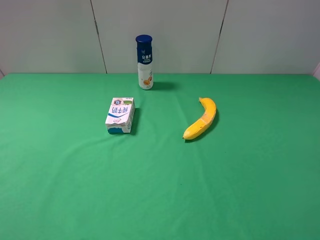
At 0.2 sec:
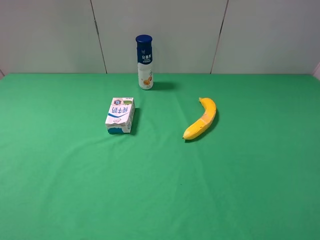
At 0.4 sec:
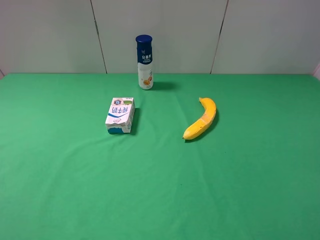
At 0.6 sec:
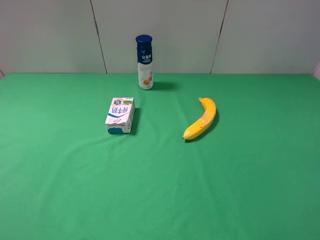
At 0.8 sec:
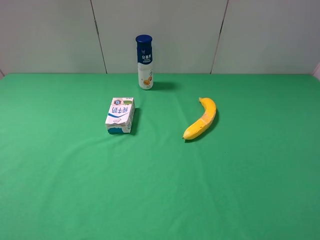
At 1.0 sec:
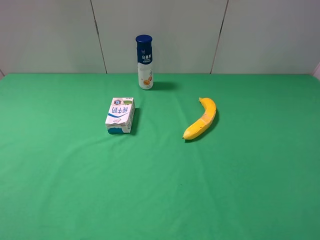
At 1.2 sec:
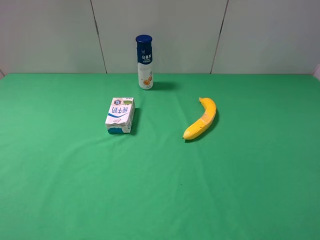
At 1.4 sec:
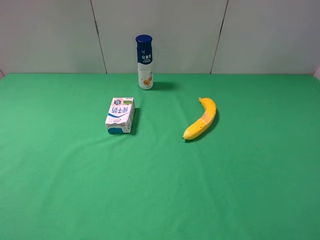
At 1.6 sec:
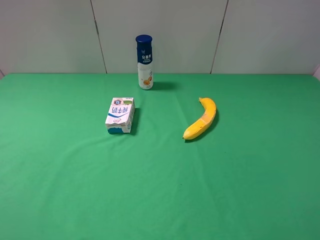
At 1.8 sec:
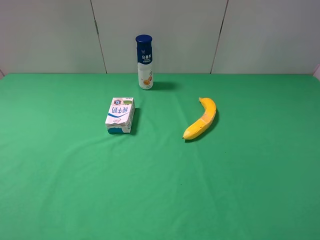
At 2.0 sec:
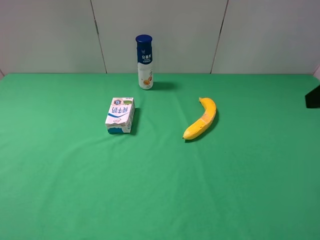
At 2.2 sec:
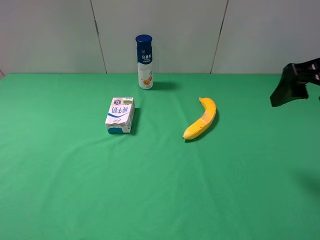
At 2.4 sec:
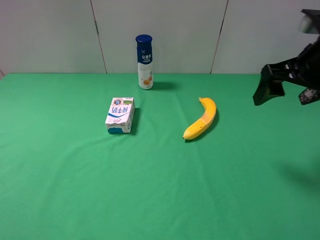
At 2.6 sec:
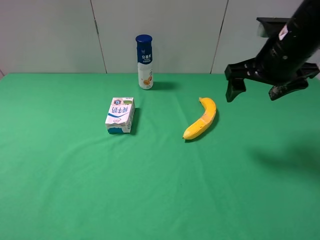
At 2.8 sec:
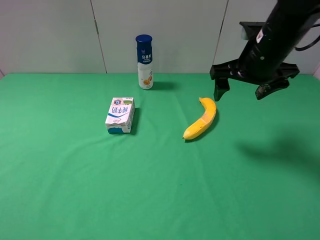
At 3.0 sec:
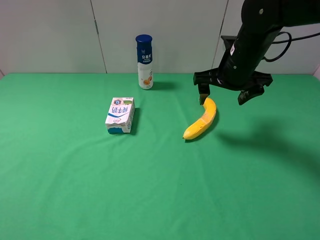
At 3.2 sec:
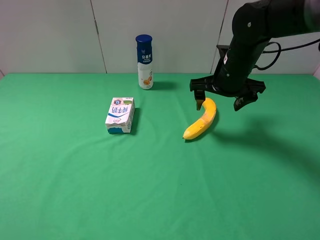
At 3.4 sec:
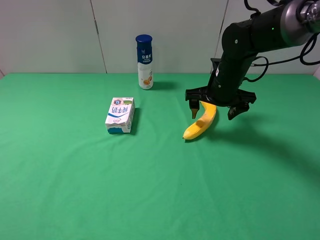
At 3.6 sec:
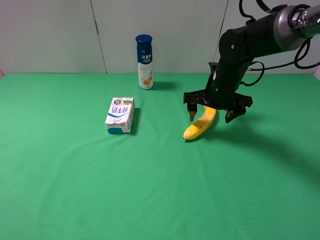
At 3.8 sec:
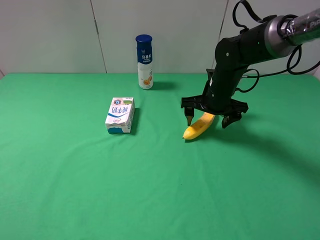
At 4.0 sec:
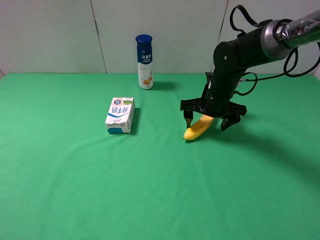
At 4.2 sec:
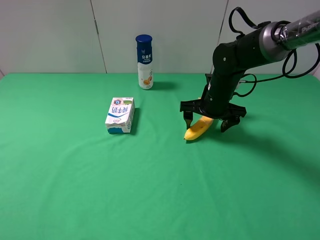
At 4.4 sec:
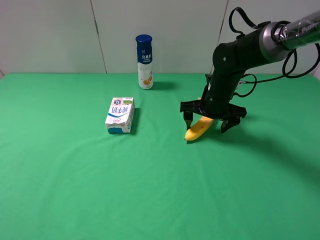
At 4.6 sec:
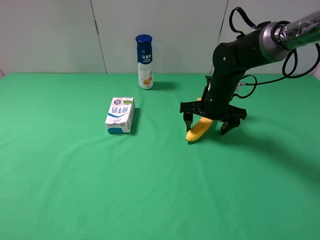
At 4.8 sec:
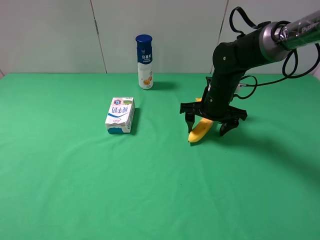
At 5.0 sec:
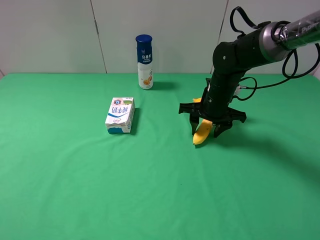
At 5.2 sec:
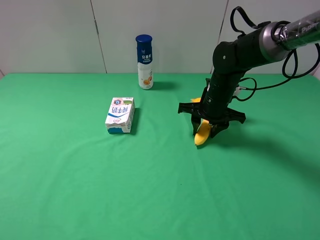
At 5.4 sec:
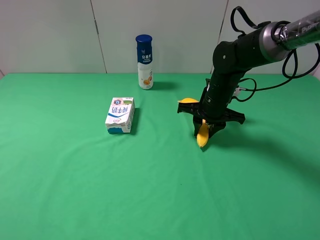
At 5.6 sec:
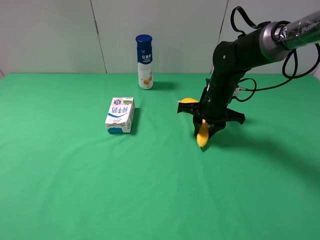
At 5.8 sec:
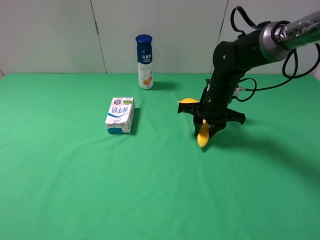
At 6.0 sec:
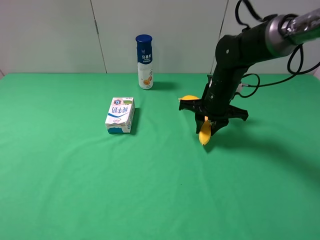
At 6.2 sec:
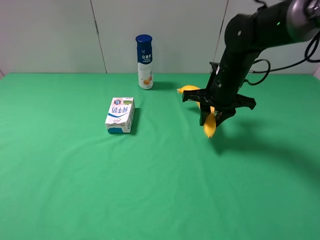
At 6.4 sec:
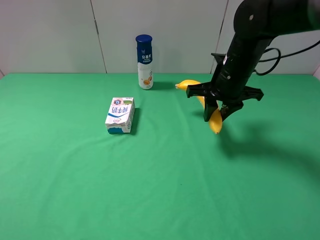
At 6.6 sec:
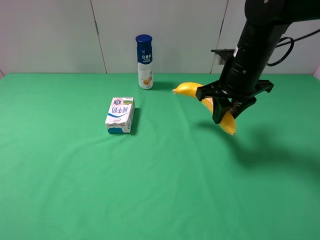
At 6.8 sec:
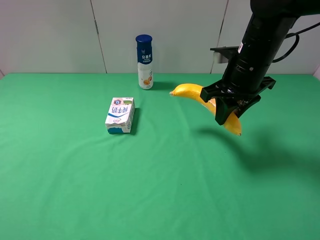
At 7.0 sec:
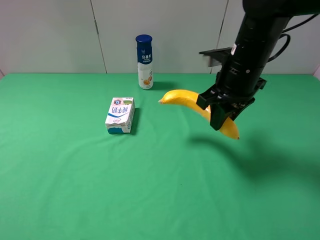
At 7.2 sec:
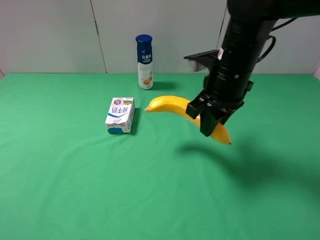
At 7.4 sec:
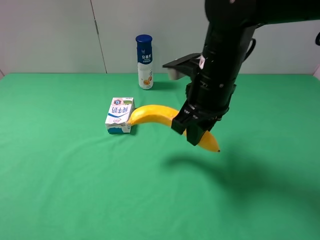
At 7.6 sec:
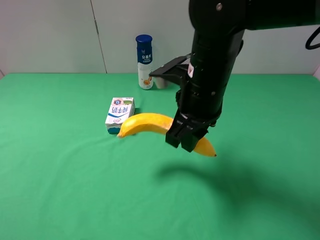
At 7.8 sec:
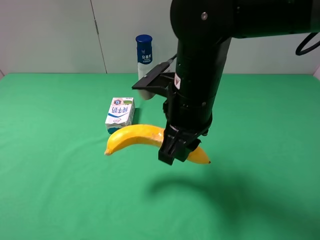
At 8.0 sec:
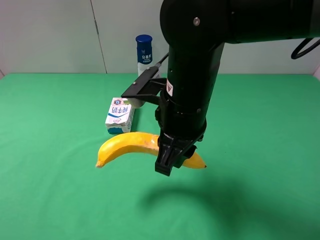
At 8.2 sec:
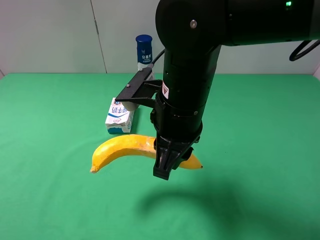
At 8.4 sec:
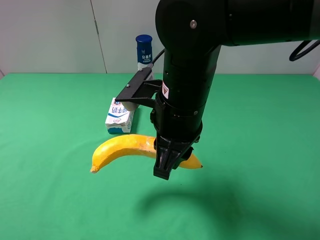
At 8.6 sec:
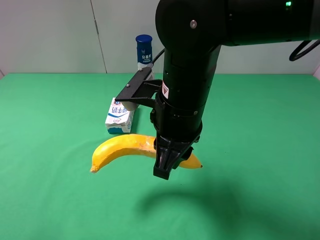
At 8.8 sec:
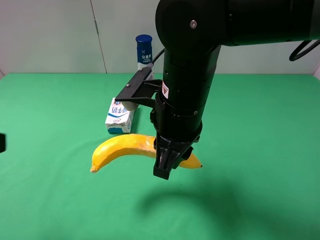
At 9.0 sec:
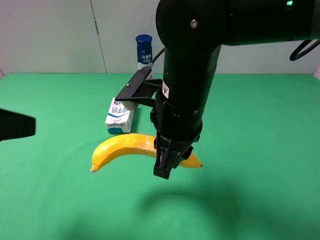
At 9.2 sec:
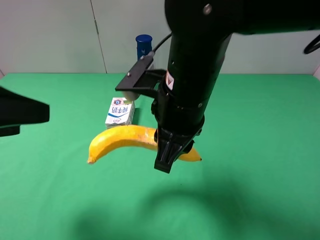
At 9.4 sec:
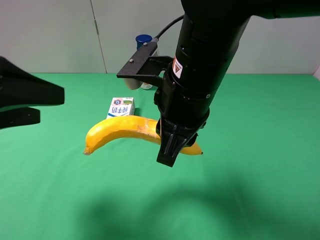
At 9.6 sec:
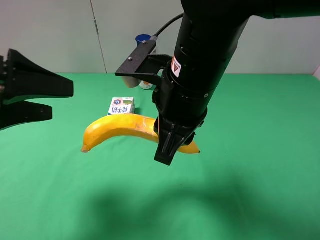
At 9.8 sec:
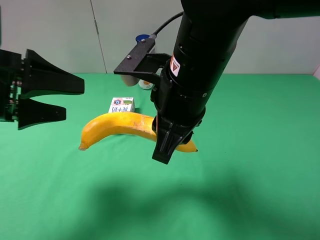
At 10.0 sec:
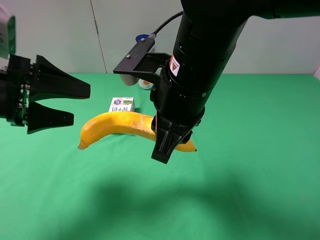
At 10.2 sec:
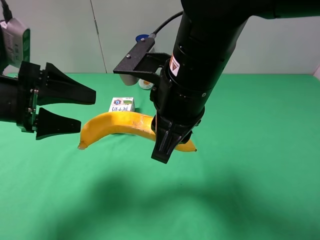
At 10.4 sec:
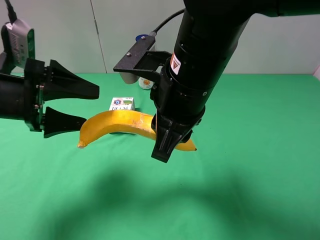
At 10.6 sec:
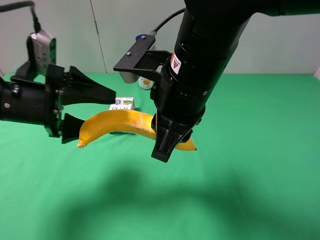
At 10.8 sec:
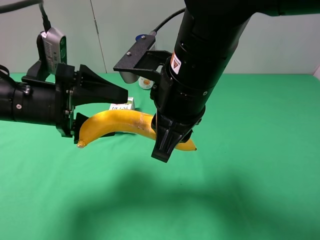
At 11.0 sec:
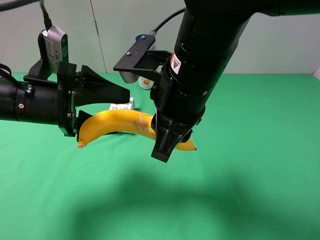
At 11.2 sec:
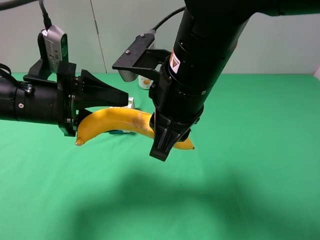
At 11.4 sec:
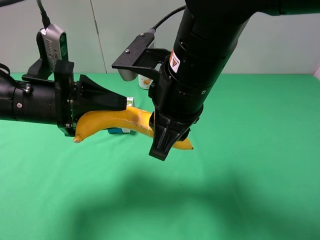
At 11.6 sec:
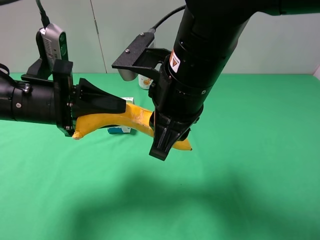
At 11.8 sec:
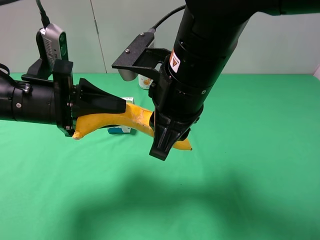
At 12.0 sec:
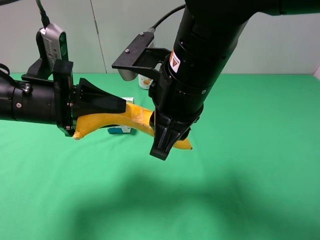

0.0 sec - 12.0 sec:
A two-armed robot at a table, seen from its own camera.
Task of the whole recording: use the right gripper to pick up the item and transfer it from the right gripper to the left gripper.
1.6 sec - 3.0 sec: The right gripper shifts some 35 cm forward and to the left.
3.0 sec - 4.4 sec: The right gripper heads downward, covering about 10 cm.
4.4 sec - 6.0 sec: The right gripper closes its fingers.
6.0 sec - 7.6 sec: The right gripper travels backward, upward and to the left by roughly 15 cm.
7.6 sec - 9.0 sec: The left gripper goes some 10 cm forward.
9.0 sec - 10.4 sec: The left gripper goes about 15 cm forward and downward.
10.4 sec - 12.0 sec: The left gripper closes.

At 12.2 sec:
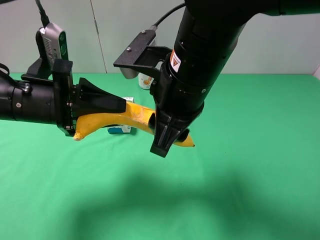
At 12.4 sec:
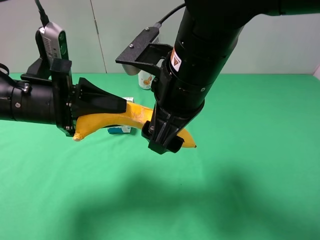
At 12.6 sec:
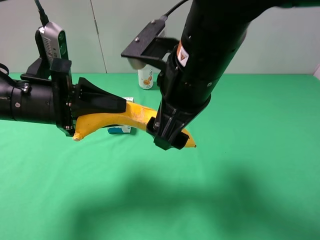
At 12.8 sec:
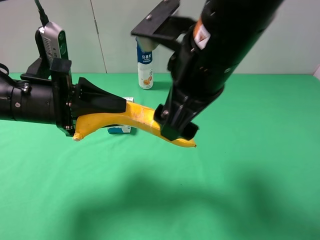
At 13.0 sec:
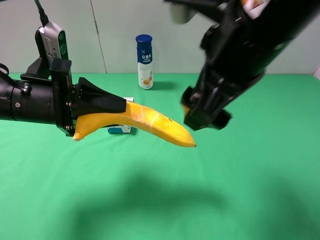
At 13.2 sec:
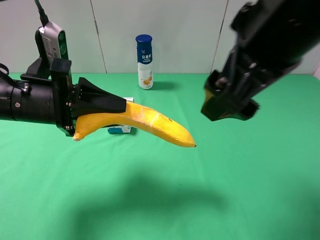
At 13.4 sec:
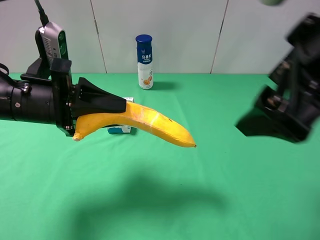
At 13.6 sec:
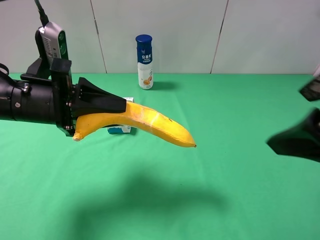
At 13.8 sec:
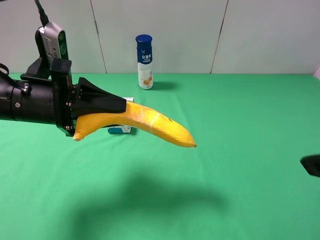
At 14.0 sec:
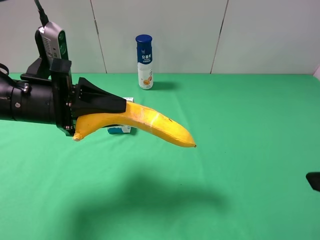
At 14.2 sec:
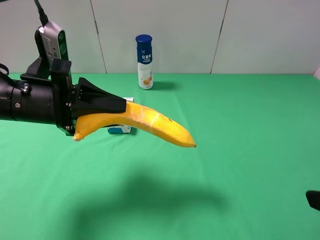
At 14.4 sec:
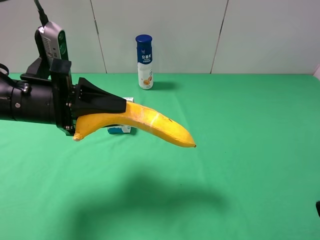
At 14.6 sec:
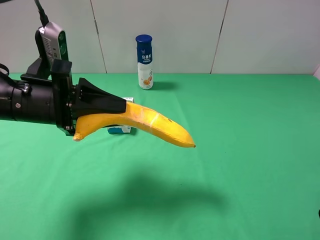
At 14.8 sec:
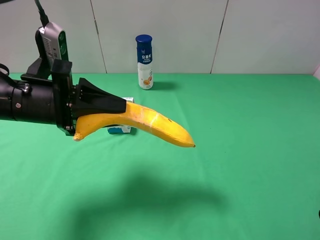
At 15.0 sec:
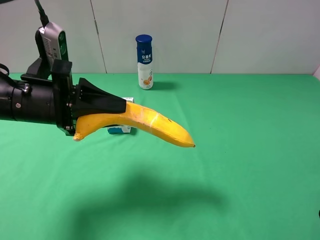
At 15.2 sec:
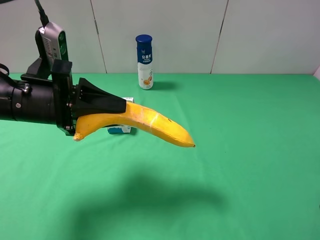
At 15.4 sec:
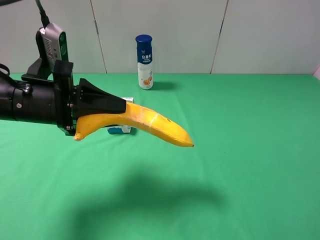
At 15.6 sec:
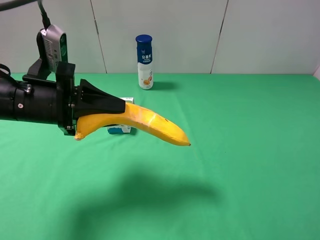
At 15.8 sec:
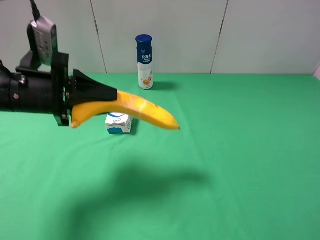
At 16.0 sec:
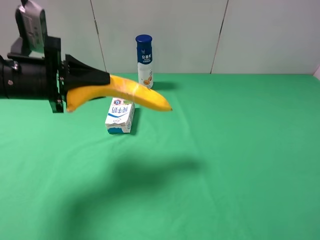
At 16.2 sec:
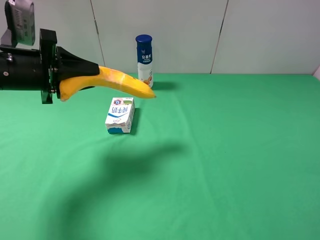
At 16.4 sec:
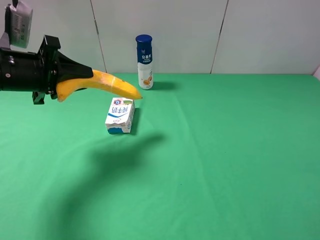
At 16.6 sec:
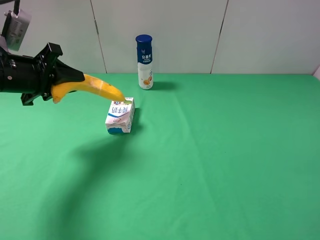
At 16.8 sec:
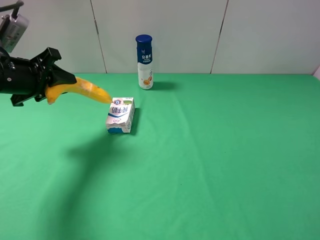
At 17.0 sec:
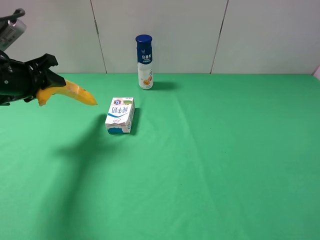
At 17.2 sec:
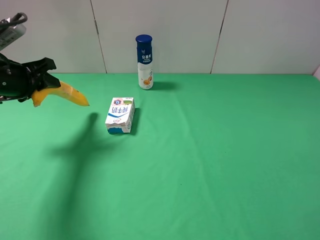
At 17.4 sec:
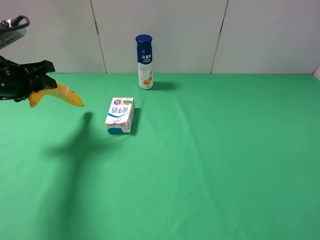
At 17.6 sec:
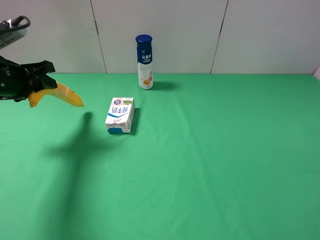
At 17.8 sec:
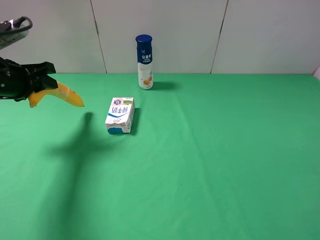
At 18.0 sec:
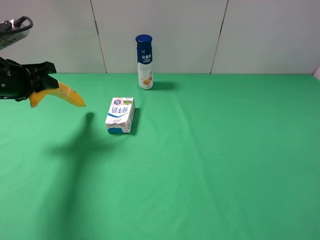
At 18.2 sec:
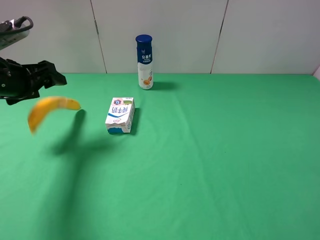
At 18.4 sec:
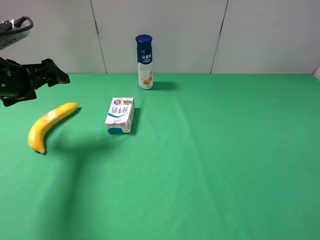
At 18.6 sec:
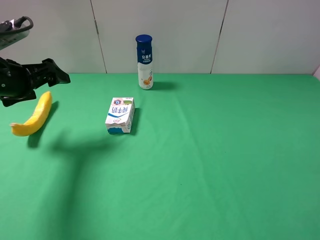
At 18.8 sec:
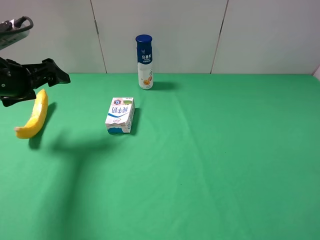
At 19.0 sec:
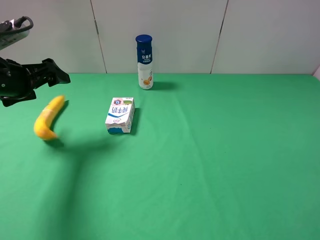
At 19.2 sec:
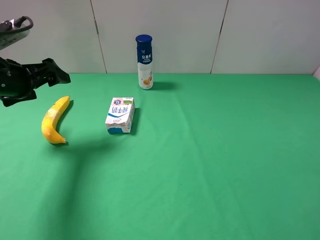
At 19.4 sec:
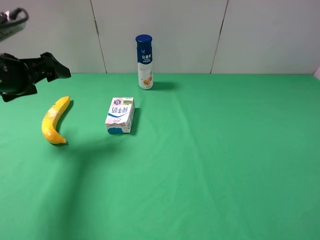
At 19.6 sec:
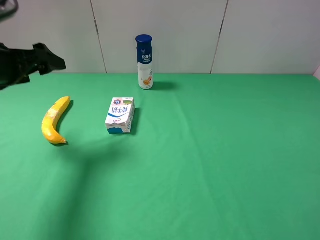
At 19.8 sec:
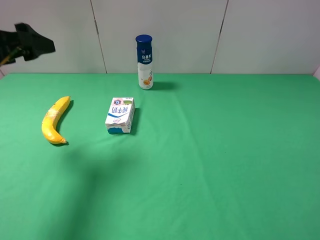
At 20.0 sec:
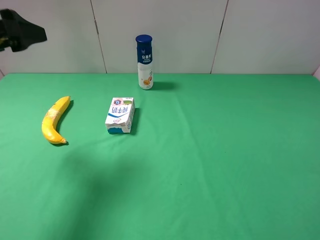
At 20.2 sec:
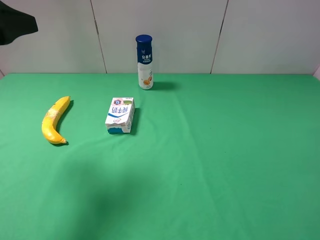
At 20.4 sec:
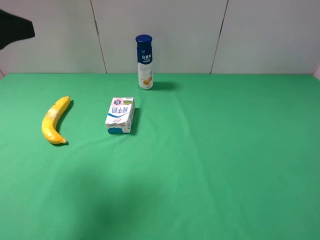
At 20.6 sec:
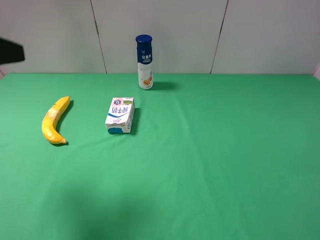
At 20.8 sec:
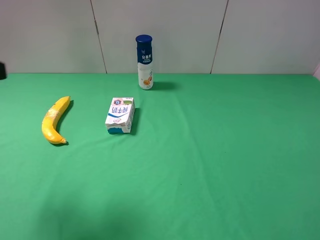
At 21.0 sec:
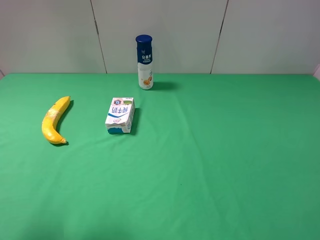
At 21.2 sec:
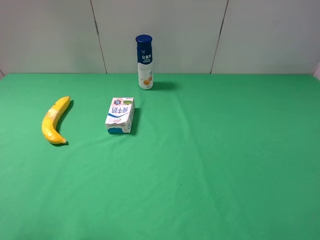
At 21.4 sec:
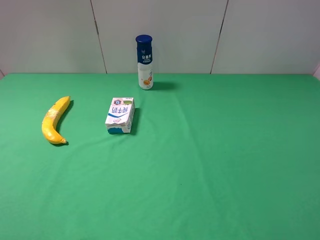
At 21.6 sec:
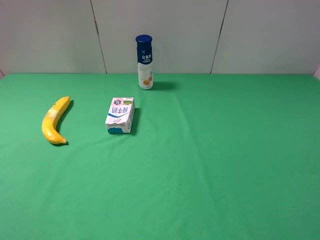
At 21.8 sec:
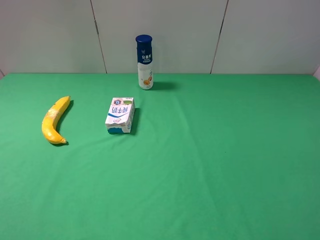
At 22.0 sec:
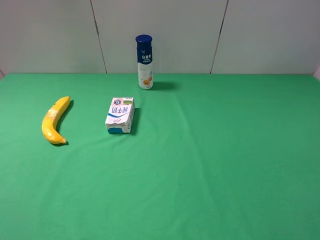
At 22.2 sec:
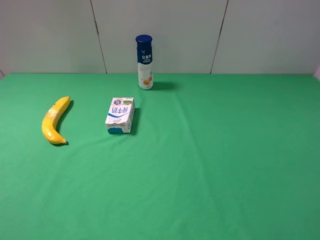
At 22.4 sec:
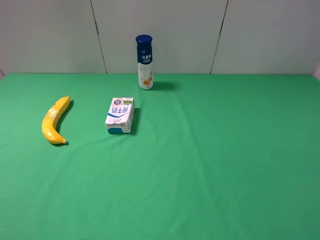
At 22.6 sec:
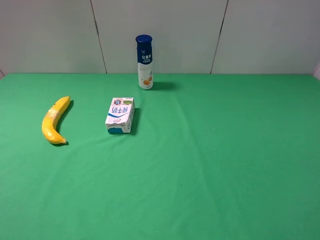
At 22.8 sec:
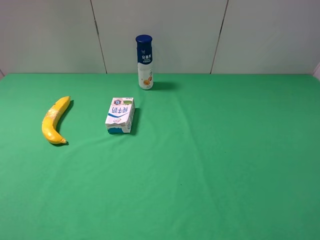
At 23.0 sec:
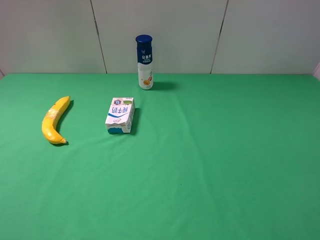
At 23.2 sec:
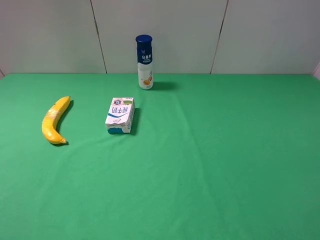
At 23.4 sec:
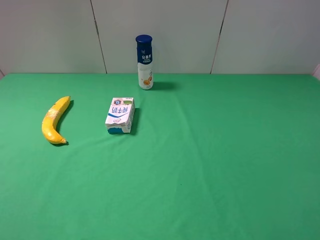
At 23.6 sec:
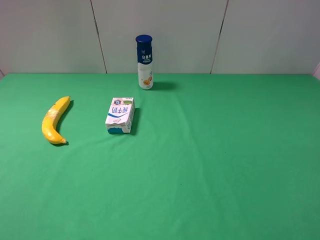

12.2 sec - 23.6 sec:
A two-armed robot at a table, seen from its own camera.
Task of the whole recording: use the right gripper to pick up the item and transfer it from the right gripper to the left gripper.
Step, 12.6 sec - 18.6 sec: The left gripper places banana on the left side of the table.
12.2 sec - 13.6 sec: The right gripper travels to the right, backward and upward by some 20 cm.
13.6 sec - 15.0 sec: The right gripper shifts approximately 15 cm to the right, downward and backward.
15.0 sec - 16.4 sec: The left gripper is displaced to the left and forward by about 10 cm.
16.4 sec - 17.8 sec: The left gripper moves approximately 5 cm.
17.8 sec - 19.4 sec: The left gripper opens.
19.4 sec - 20.8 sec: The left gripper travels backward and upward by approximately 20 cm.
20.8 sec - 22.2 sec: The left gripper is displaced backward by some 10 cm.
